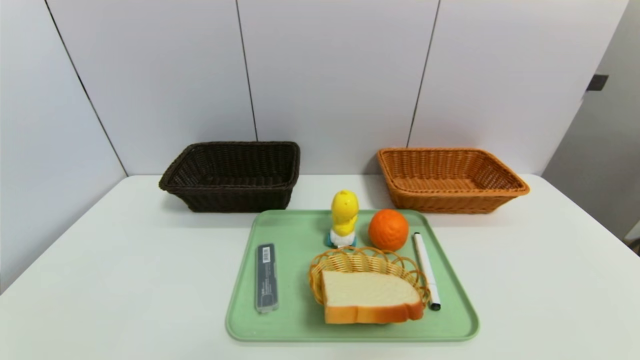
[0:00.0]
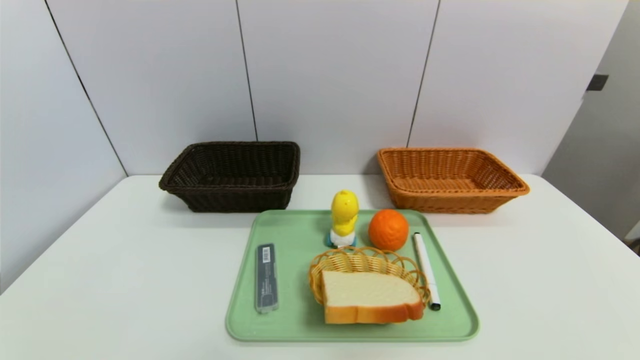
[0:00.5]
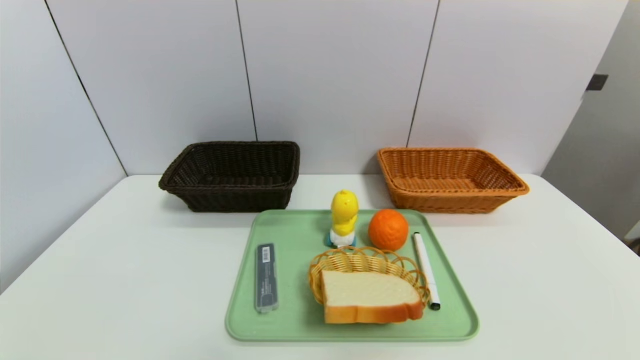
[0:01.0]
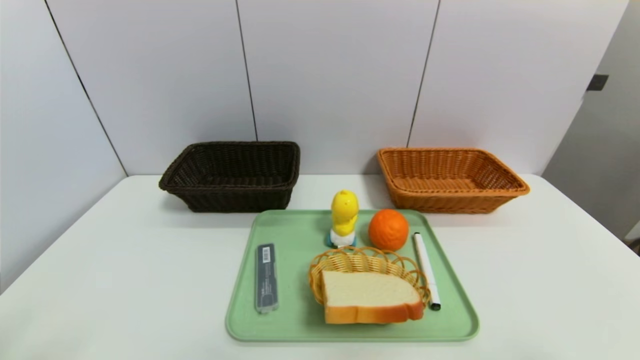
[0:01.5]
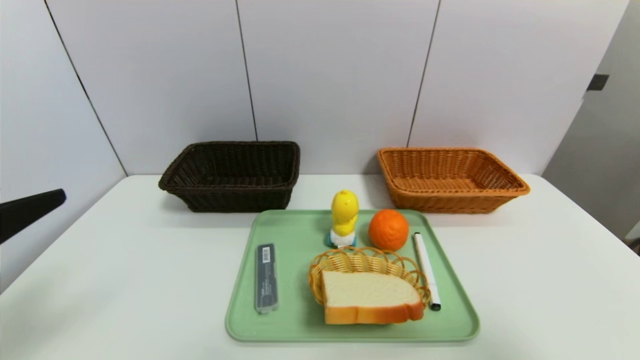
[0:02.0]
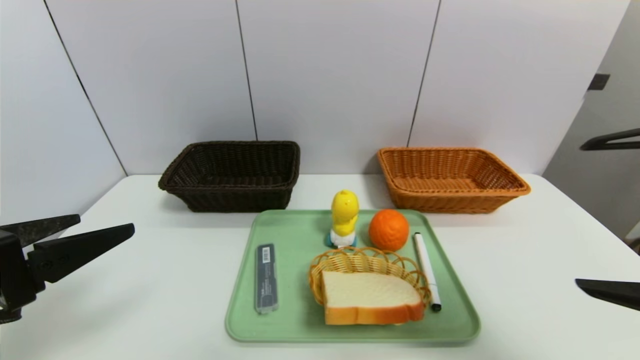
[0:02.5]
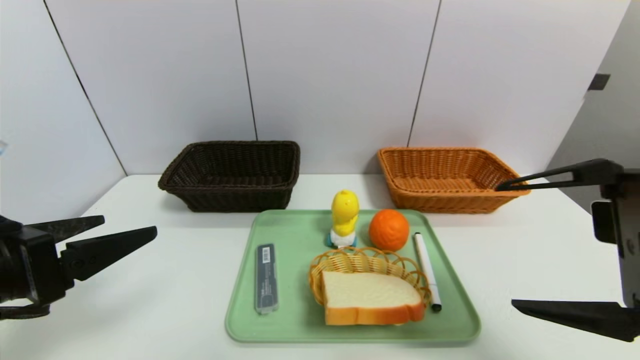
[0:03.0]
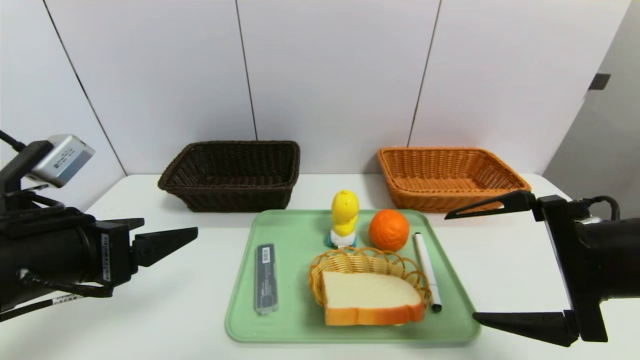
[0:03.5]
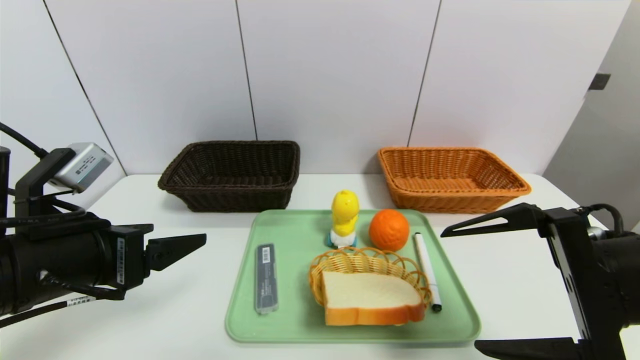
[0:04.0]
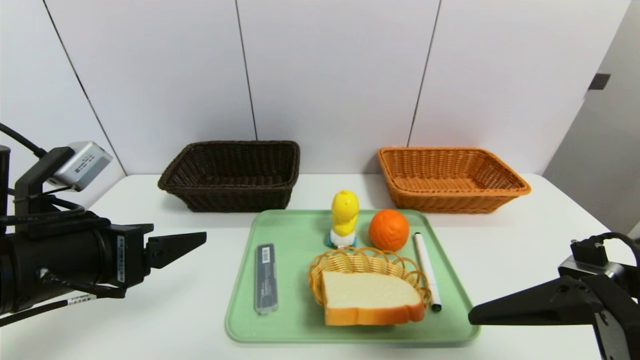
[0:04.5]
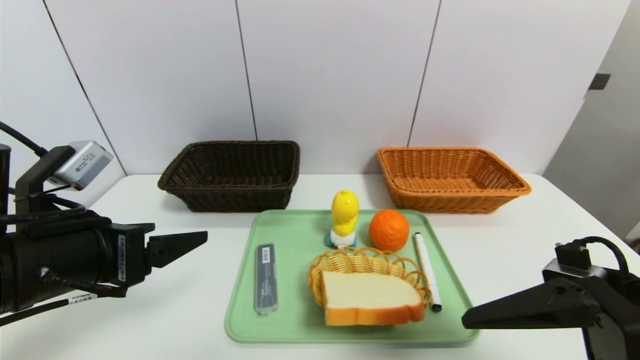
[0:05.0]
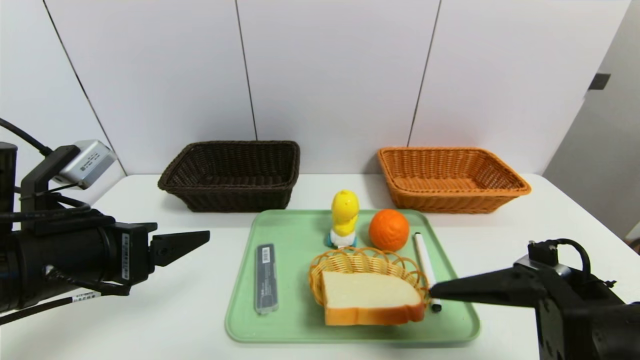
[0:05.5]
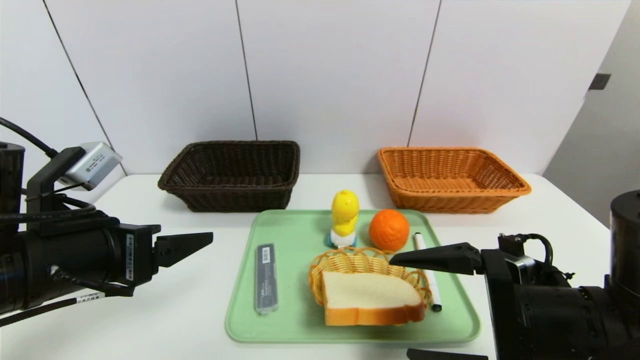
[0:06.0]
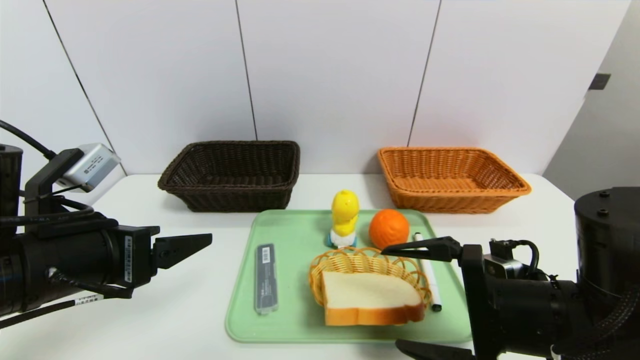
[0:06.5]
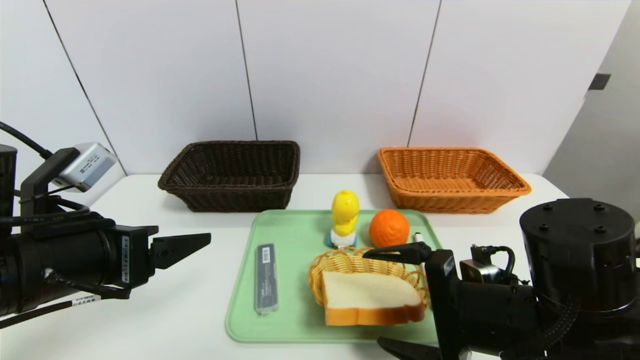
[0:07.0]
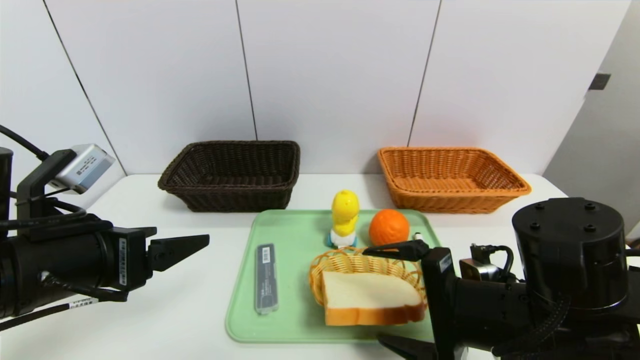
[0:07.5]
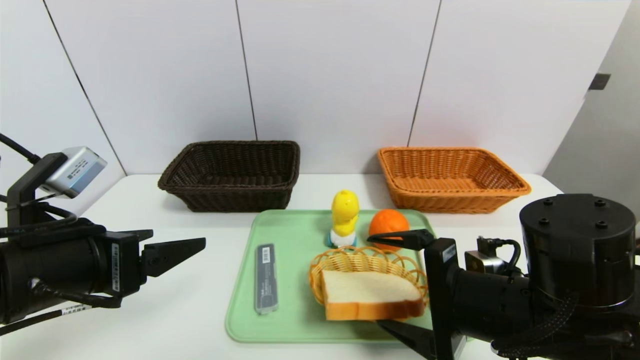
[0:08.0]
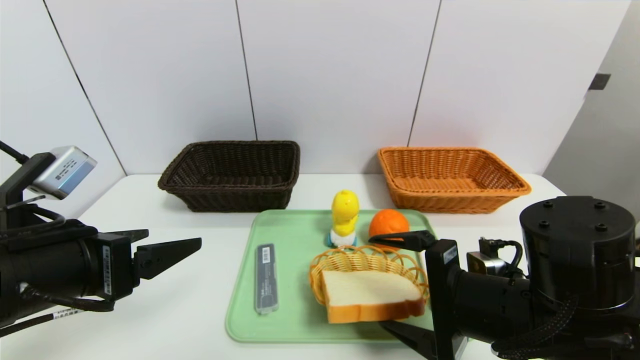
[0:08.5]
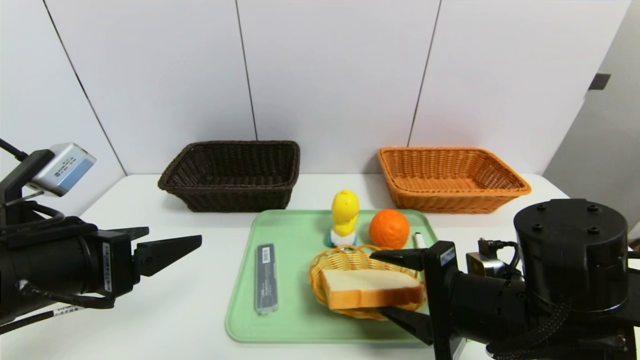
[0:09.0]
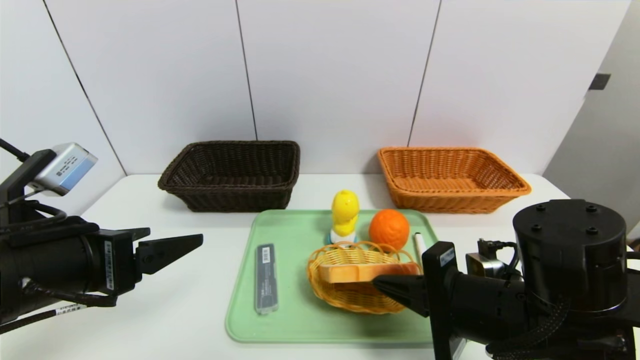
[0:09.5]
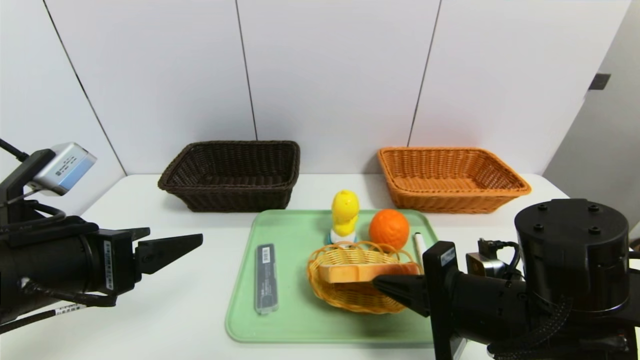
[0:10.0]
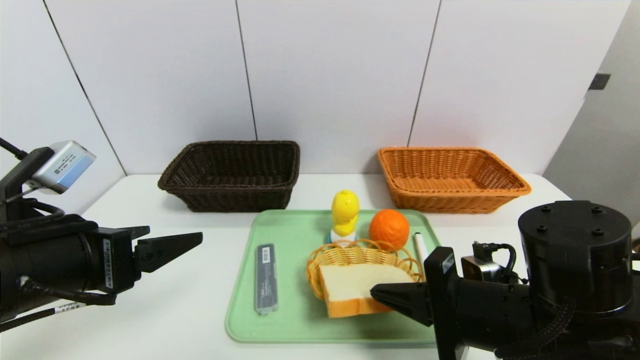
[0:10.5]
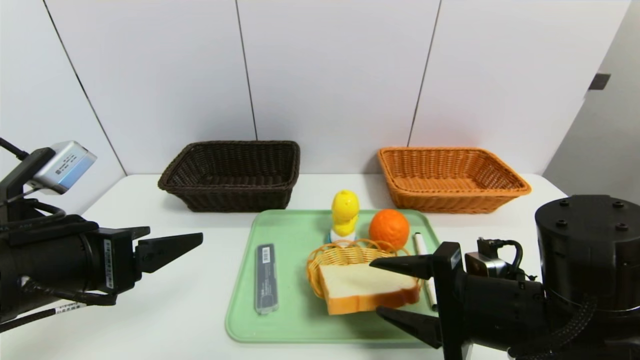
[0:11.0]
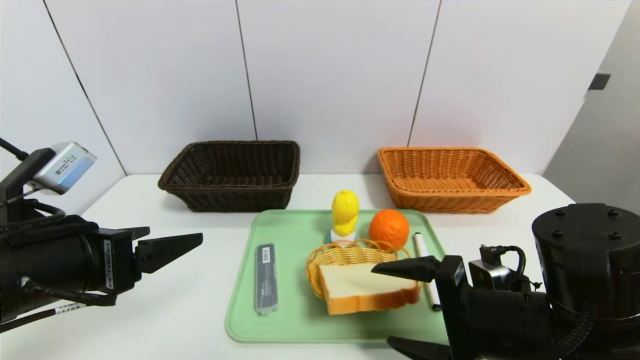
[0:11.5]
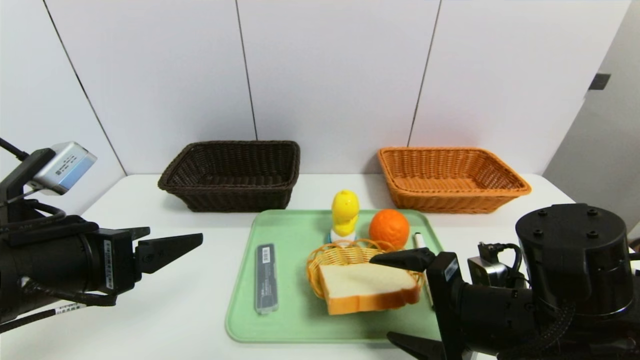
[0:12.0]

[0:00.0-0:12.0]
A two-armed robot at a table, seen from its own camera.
Task of the whole recording: place the food in the right basket with the right gripper, and place the non food items in the left basket with the left gripper.
0:00.0 to 0:02.0: The right gripper is displaced upward by about 25 cm; the left gripper heads upward and forward, covering about 20 cm.
0:02.0 to 0:04.0: The right gripper travels forward, to the left and downward by approximately 15 cm, while the left gripper goes about 10 cm forward, to the right and downward.
0:04.0 to 0:06.0: The right gripper moves downward, approximately 5 cm.
0:06.0 to 0:08.0: The grippers move only a little.
0:08.0 to 0:10.0: The right gripper closes up.
0:10.0 to 0:12.0: The right gripper opens.

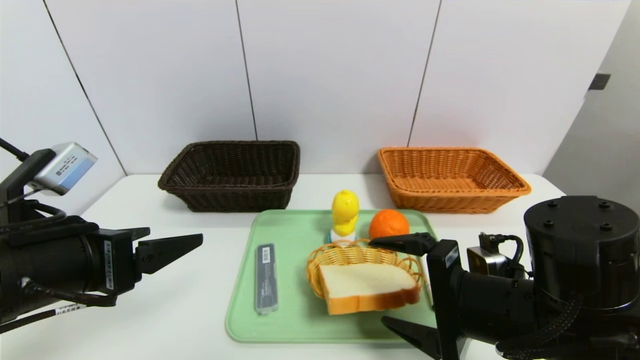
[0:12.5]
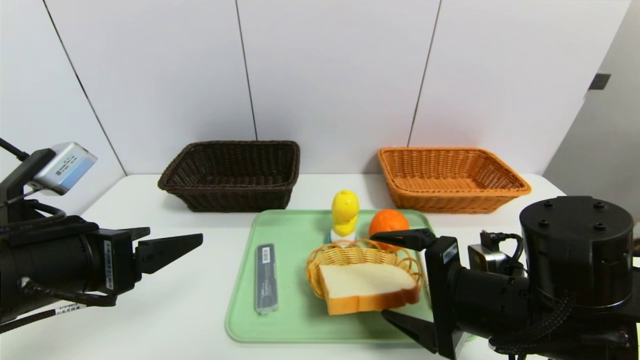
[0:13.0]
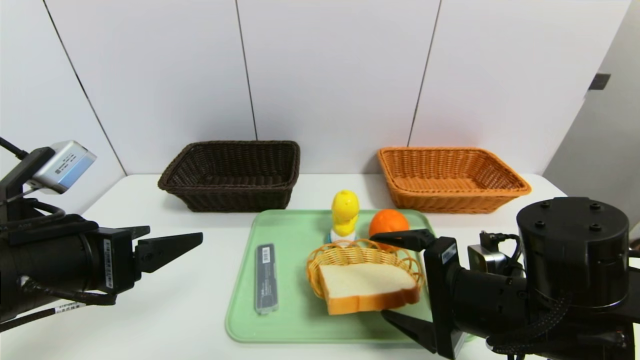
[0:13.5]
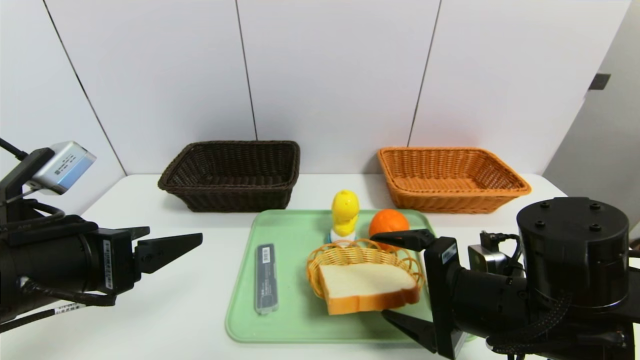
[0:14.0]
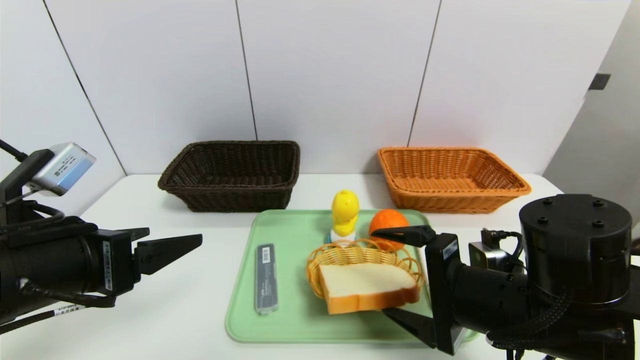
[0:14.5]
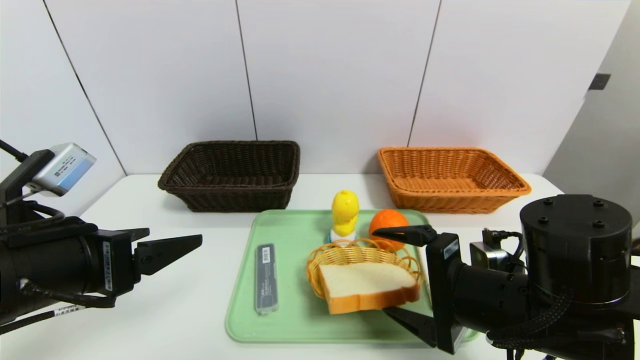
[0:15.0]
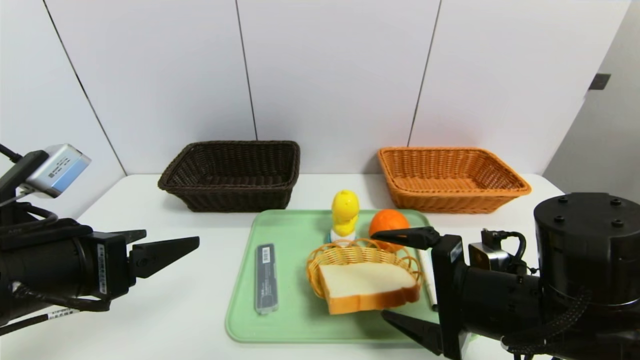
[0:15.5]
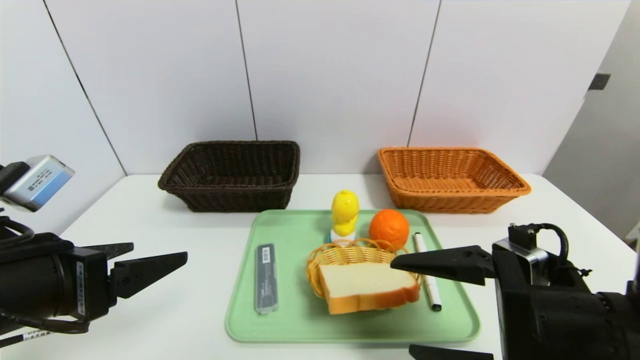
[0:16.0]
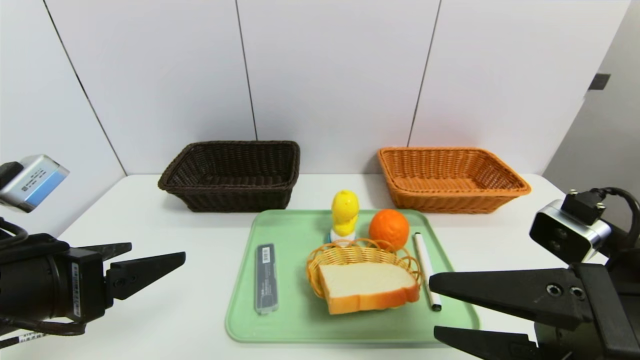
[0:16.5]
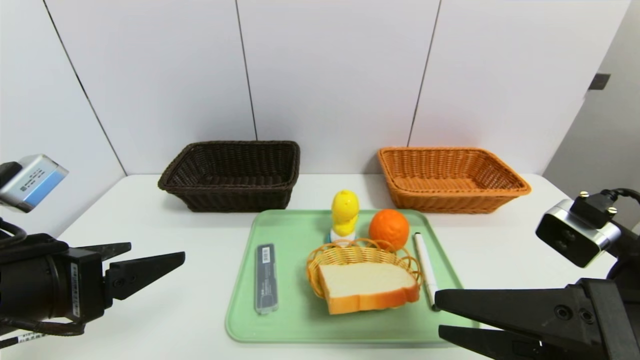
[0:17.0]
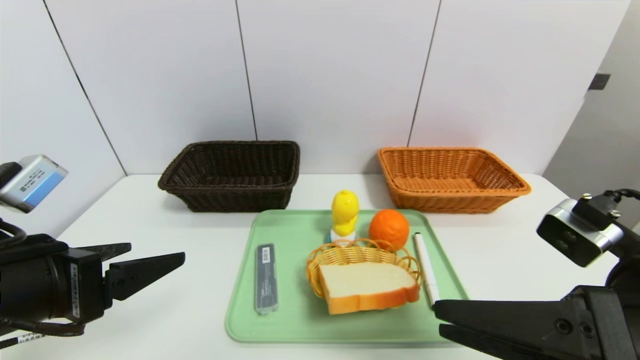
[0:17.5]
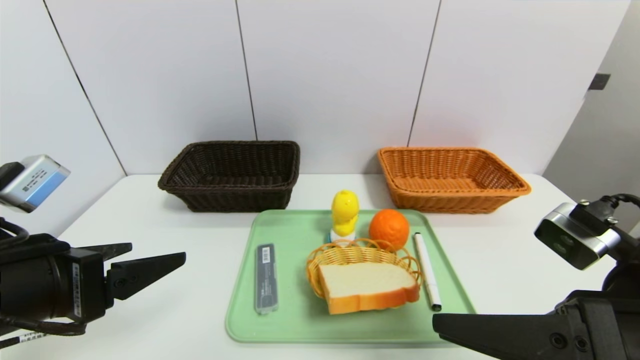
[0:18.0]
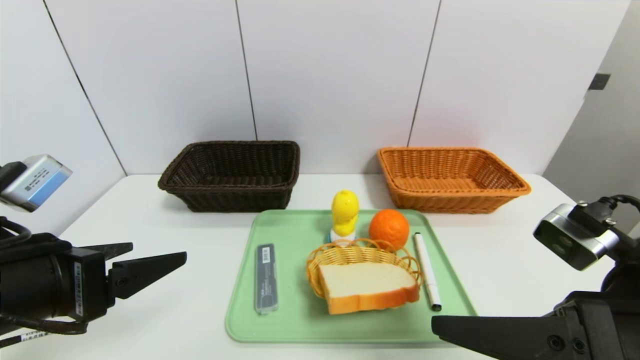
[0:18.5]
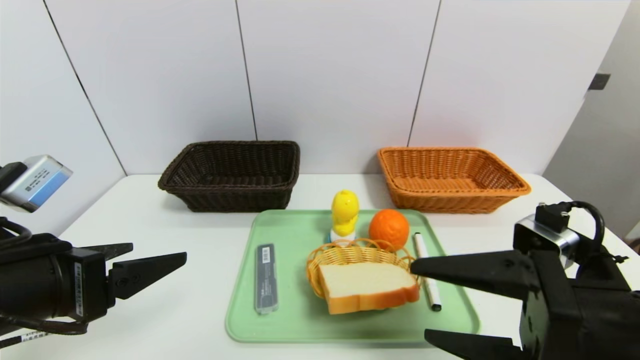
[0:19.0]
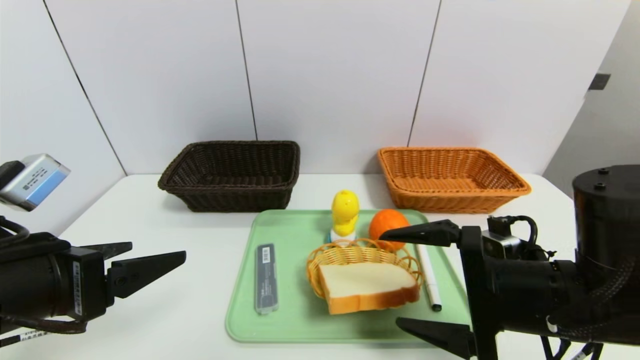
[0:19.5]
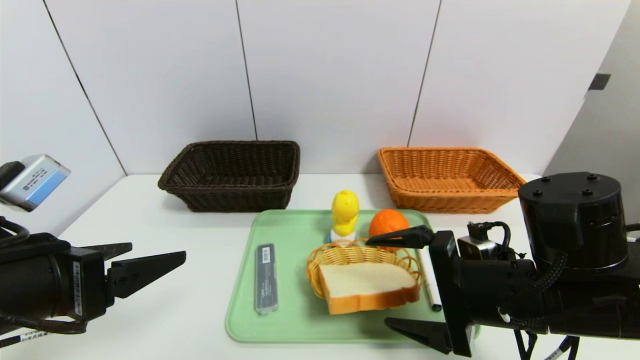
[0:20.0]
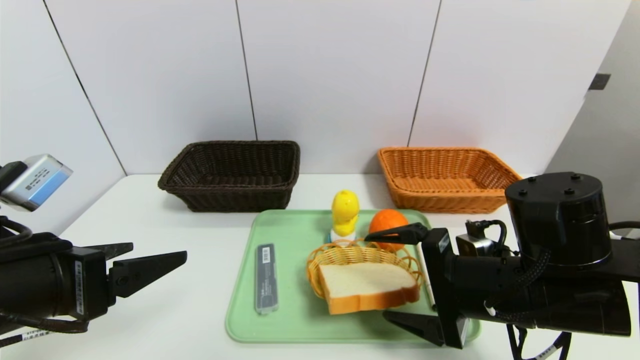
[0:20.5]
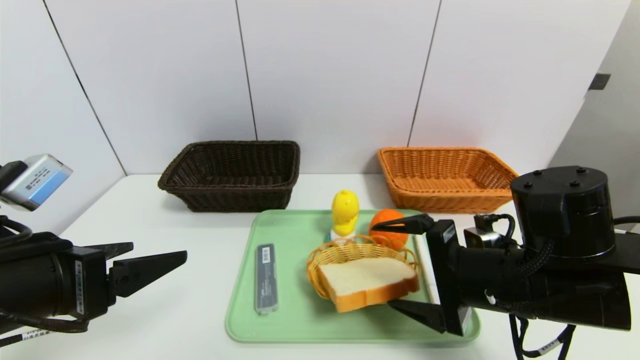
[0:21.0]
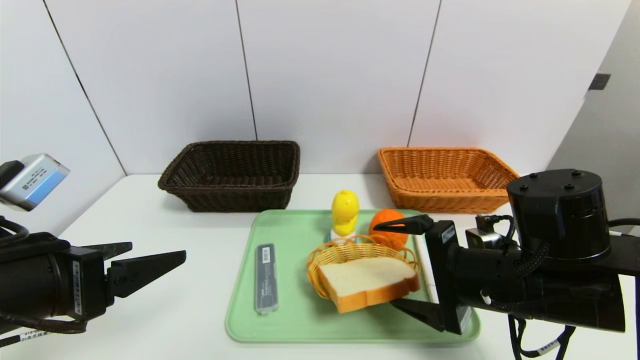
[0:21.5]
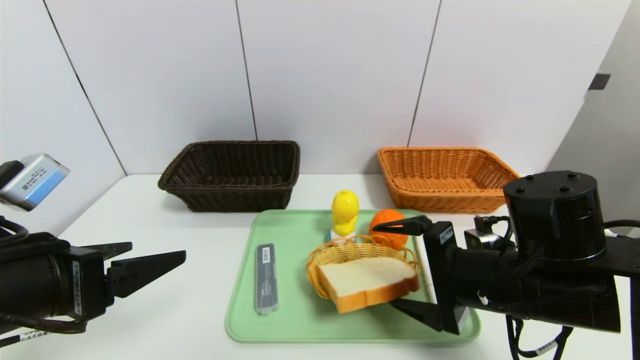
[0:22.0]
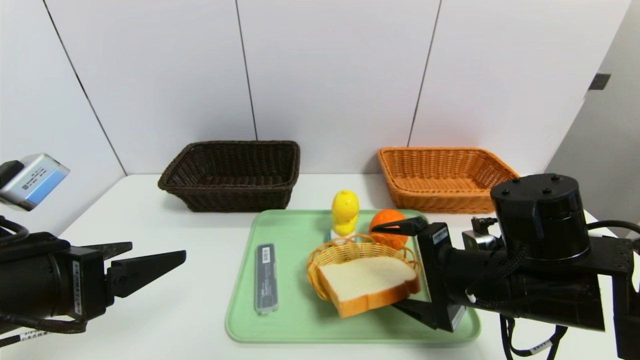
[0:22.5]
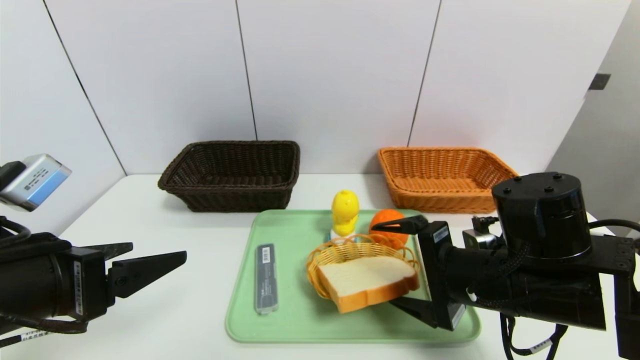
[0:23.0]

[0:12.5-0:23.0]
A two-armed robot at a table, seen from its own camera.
Task of the whole recording: place the food in the right basket with the right gripper, and place the non food items in the left basket with the left gripper.
0:12.5 to 0:14.5: Both grippers stay put.
0:14.5 to 0:16.5: The right gripper shifts approximately 5 cm backward.
0:16.5 to 0:19.0: The grippers move only a little.
0:19.0 to 0:21.0: The right gripper moves forward, roughly 5 cm.
0:21.0 to 0:23.0: Both grippers stay put.
